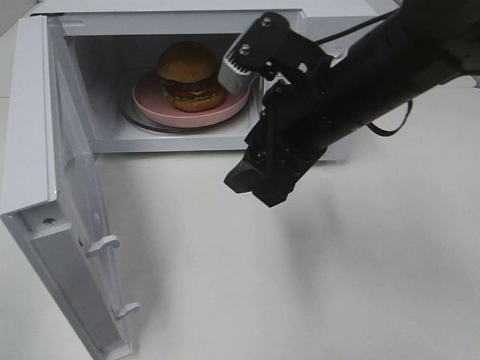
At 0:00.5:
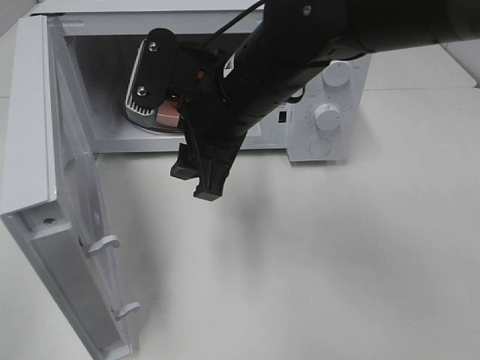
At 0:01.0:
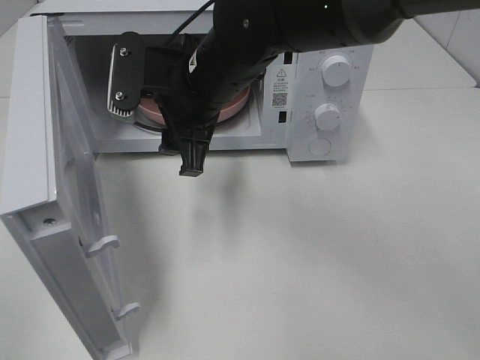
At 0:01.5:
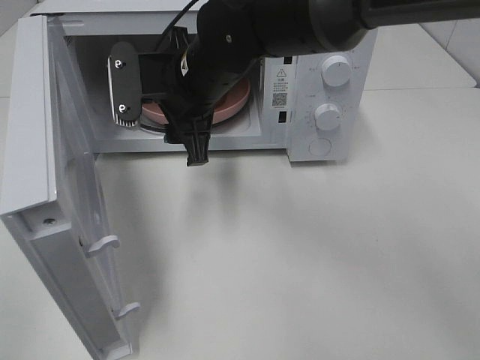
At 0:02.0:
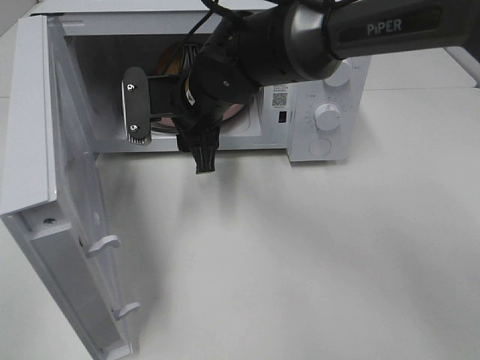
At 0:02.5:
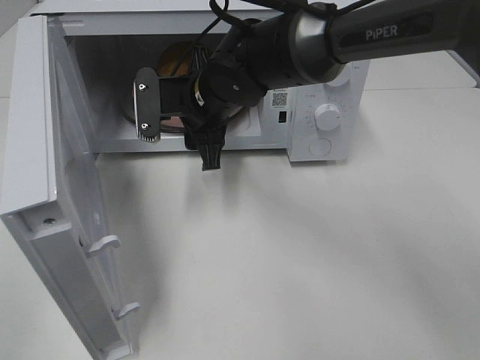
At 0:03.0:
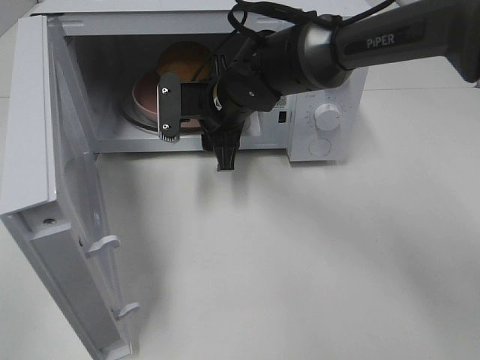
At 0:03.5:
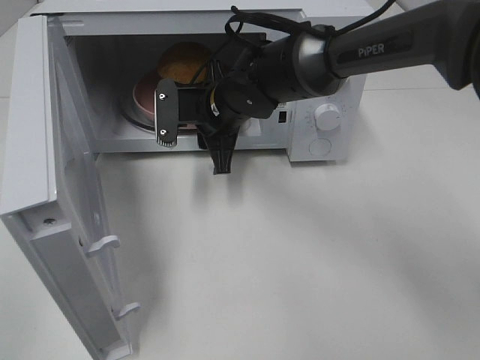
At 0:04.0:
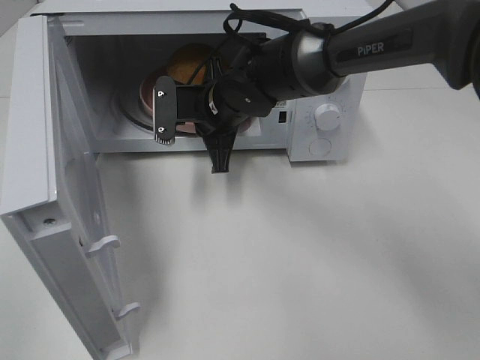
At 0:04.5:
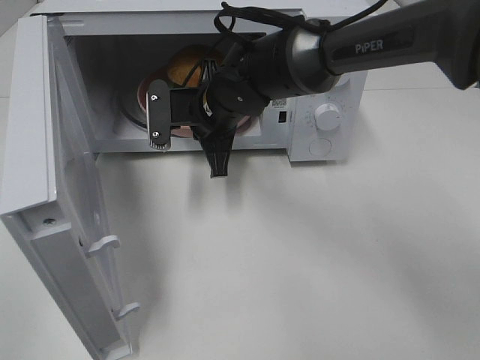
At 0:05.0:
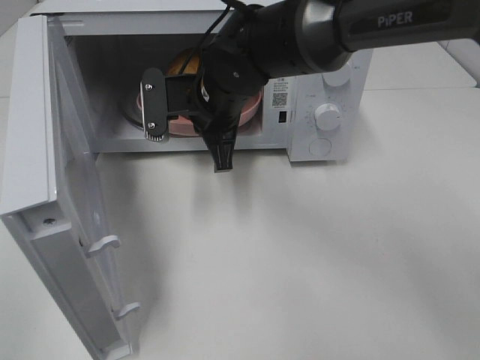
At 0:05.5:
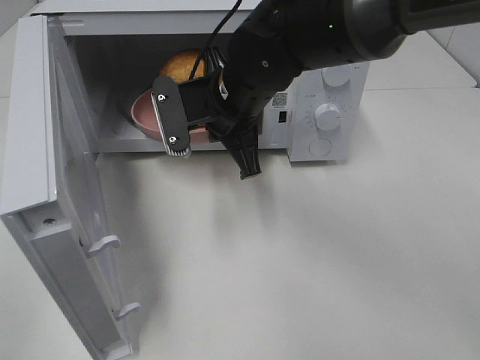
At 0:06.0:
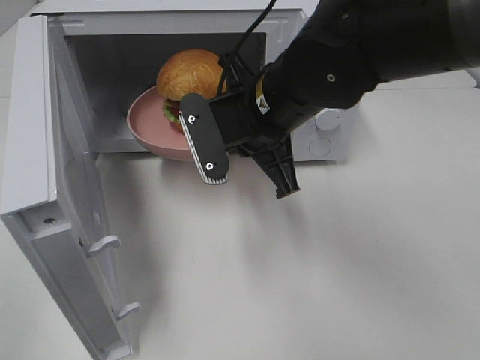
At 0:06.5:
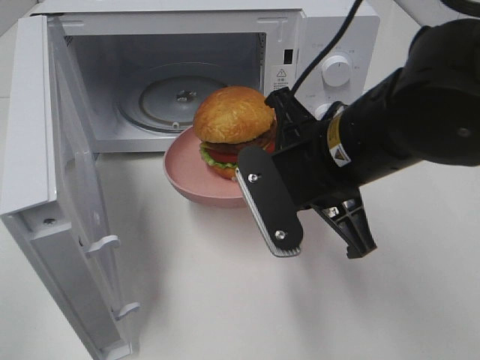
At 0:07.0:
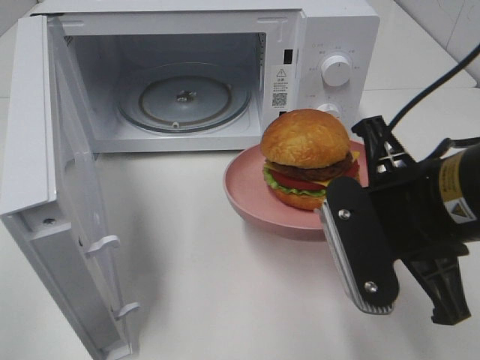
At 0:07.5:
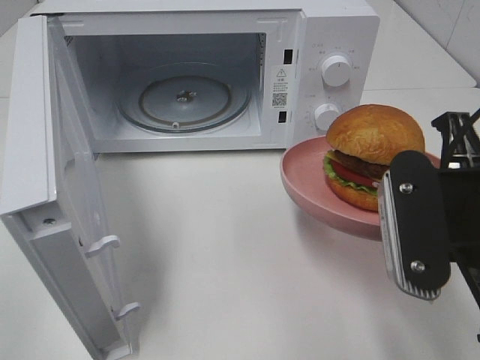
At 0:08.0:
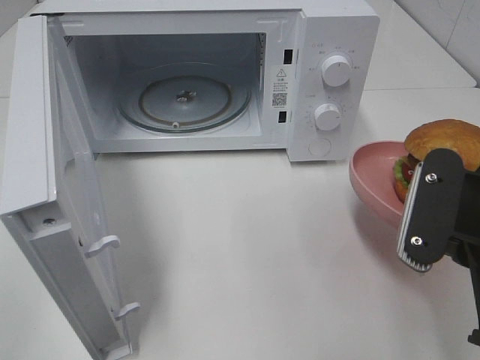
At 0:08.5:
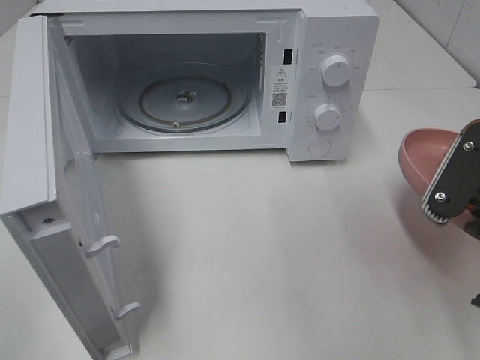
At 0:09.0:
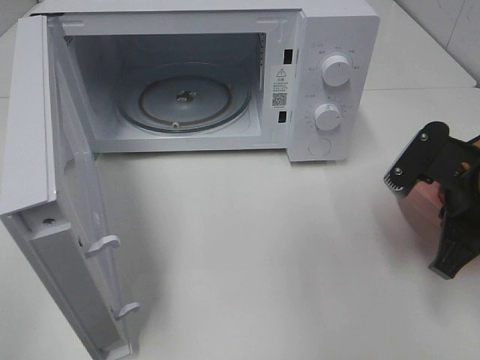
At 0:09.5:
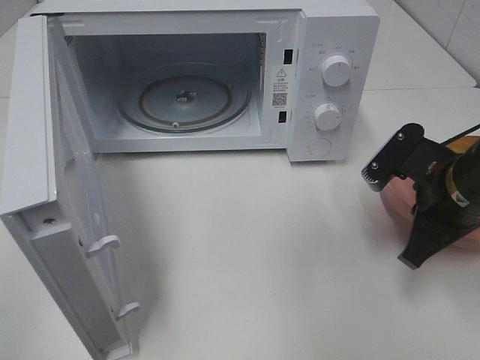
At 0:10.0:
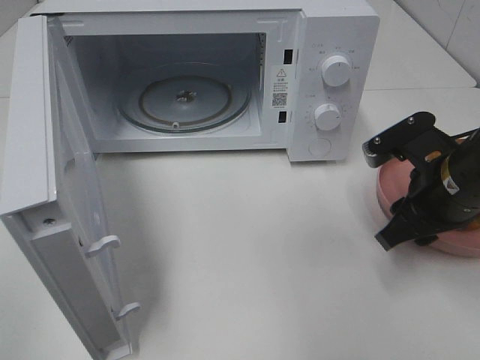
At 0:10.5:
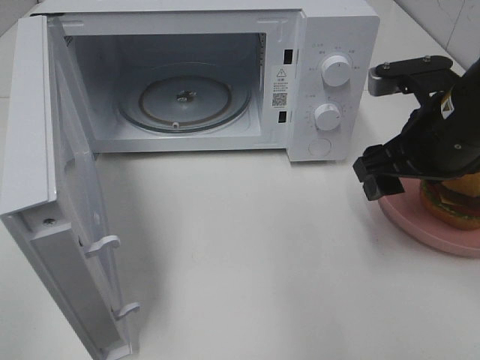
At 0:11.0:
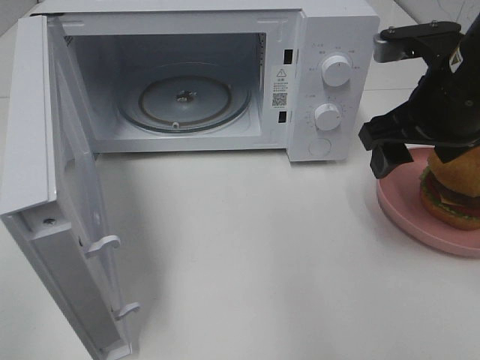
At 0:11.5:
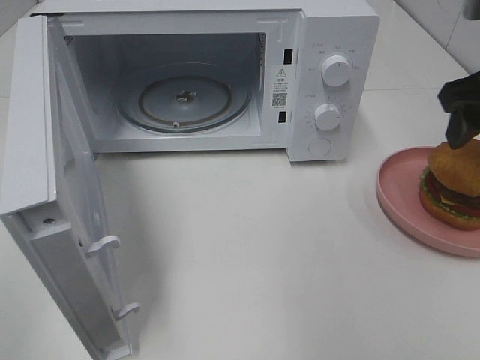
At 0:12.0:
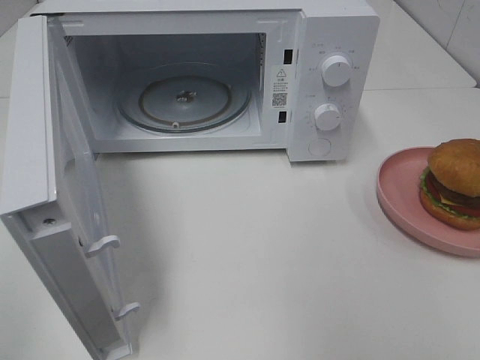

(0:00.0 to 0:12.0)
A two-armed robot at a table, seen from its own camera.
Task of the whole recording: Heat the burger.
Step, 0:00.0 - 0:03.5: Right hand: grab the plate with the hamburger.
Step, 0:04.0 - 0:09.5: Right hand: place the plate on the table.
0:00.0 - 0:02.0: The right gripper shifts some 15 cm to the left, forward and downward.
0:02.0 - 0:04.0: The right gripper changes place by some 5 cm, and closes.
0:04.0 - 0:06.0: The right gripper moves backward, upward and to the right, approximately 15 cm.
0:06.0 - 0:08.0: The right gripper moves to the right and backward, roughly 20 cm.
0:08.0 - 0:10.0: The right gripper shifts approximately 15 cm forward and downward, and opens up.
0:10.0 - 0:12.0: The right gripper travels upward by some 20 cm.

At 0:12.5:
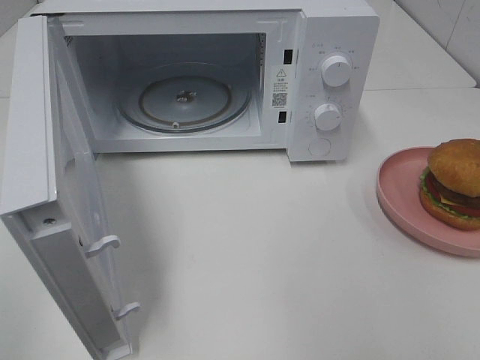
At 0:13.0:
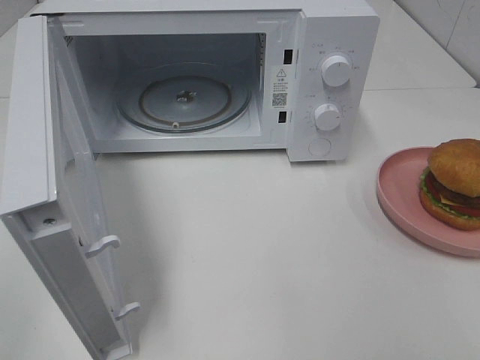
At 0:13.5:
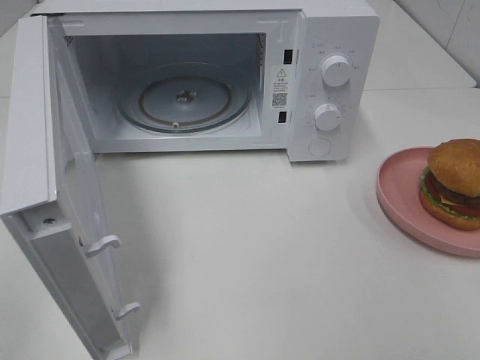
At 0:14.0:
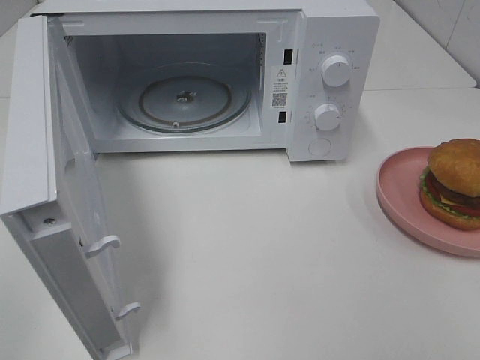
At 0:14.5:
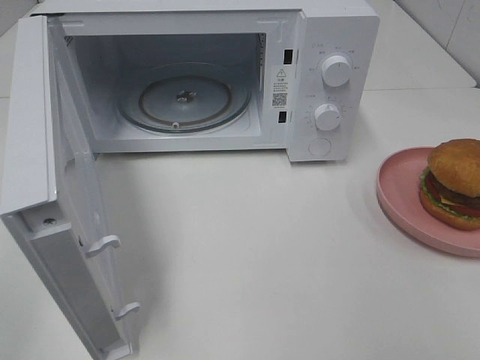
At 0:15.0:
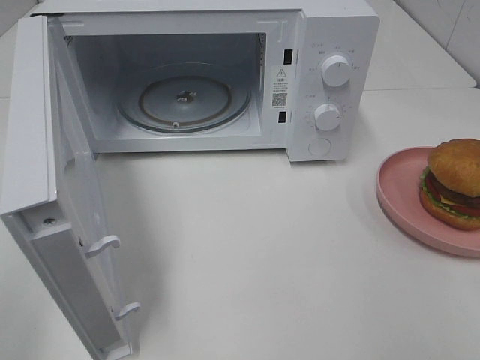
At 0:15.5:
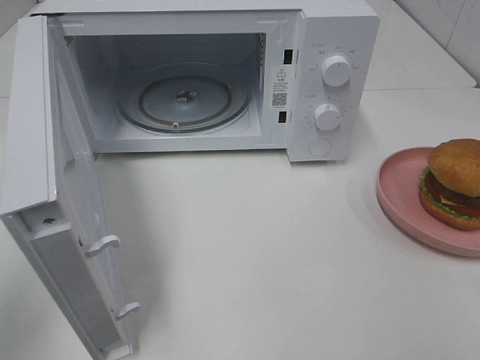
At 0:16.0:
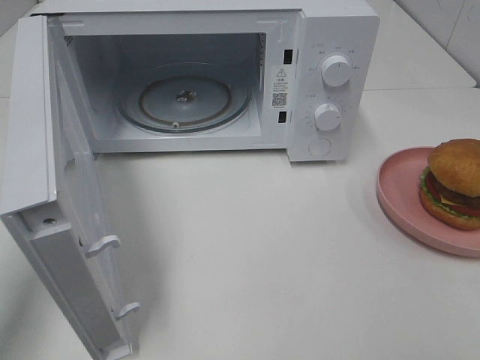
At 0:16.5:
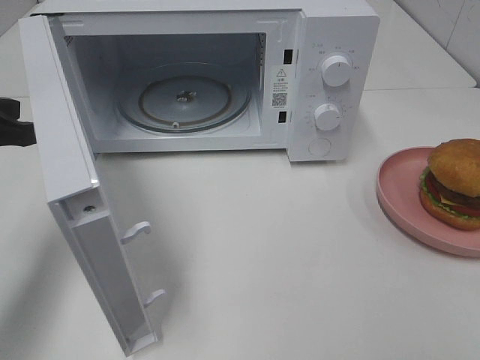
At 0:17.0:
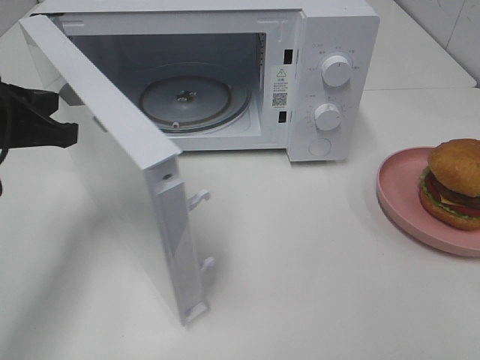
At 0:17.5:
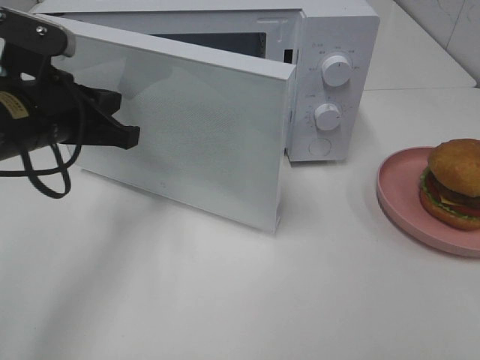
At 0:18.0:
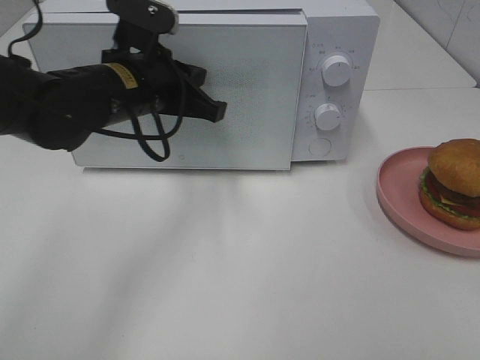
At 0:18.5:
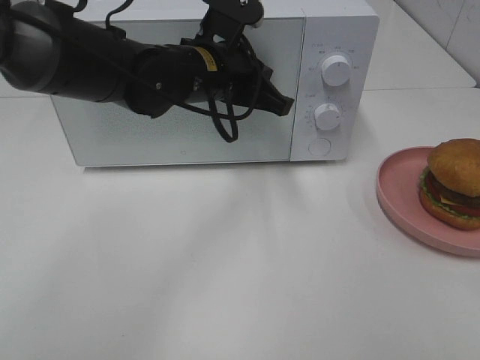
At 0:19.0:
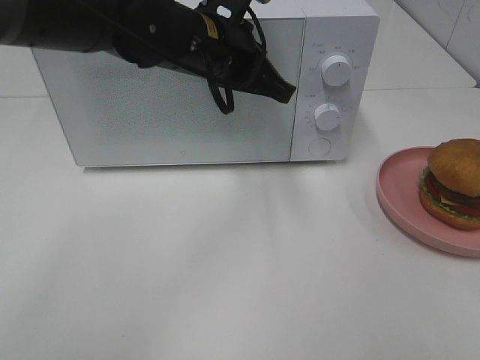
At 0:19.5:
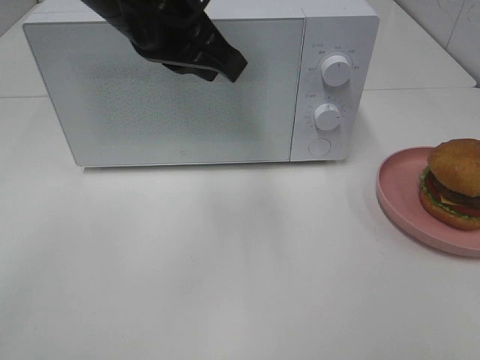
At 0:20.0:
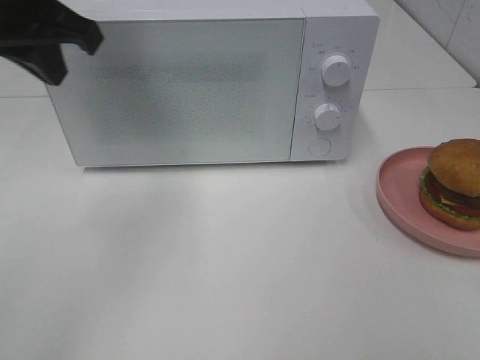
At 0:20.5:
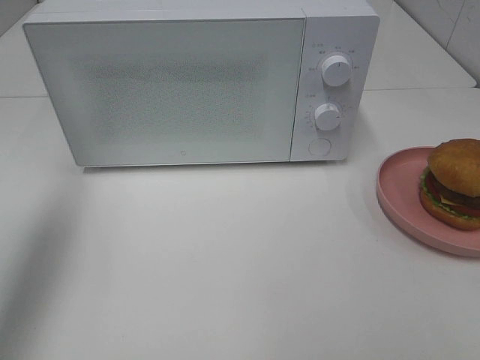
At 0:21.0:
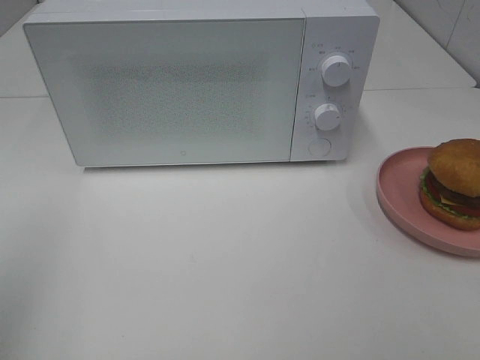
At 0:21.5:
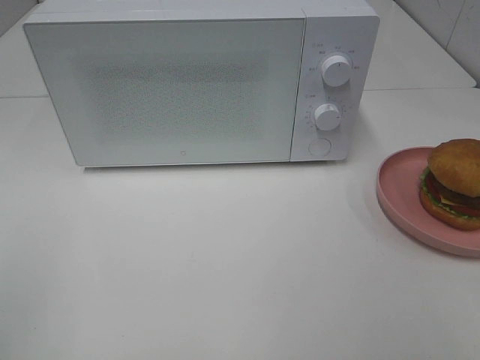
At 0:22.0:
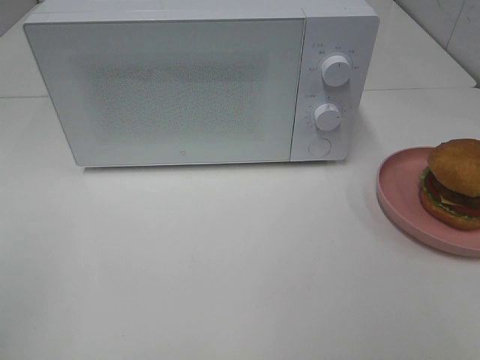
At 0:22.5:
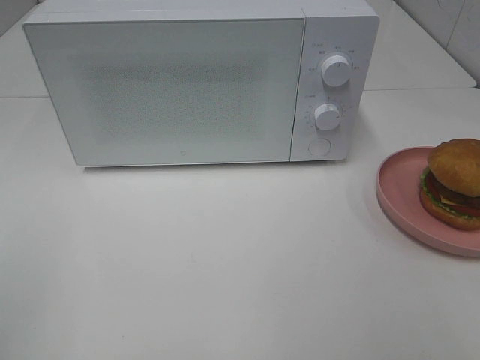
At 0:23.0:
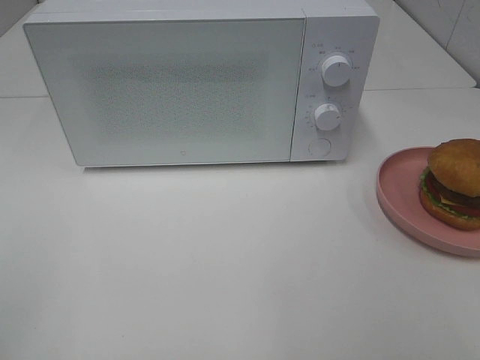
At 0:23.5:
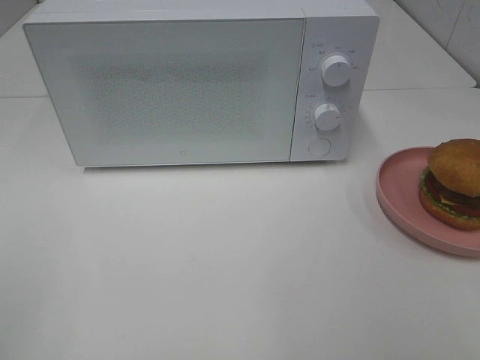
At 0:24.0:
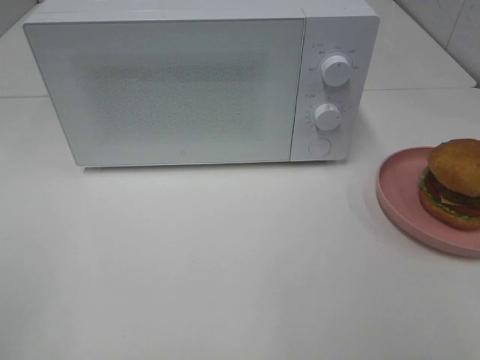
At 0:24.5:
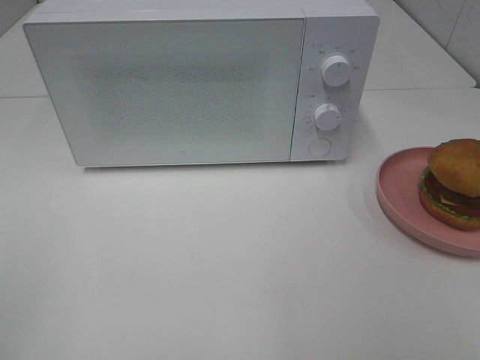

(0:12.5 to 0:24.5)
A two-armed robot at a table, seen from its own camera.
Task of the whole recording: Heat the burger.
Step, 0:12.5 - 0:18.0: Left hand: close the microwave door.
0:14.5 - 0:16.5: The left gripper goes roughly 25 cm forward.
0:16.5 - 0:18.5: The left gripper heads to the right and forward, covering approximately 25 cm.
0:18.5 - 0:20.5: The left gripper travels to the left, upward and backward by approximately 35 cm.
0:20.5 - 0:22.5: The left gripper moves backward, about 25 cm.

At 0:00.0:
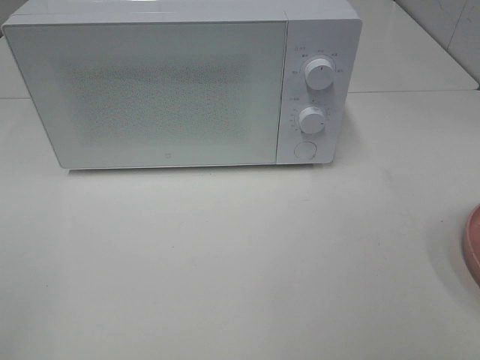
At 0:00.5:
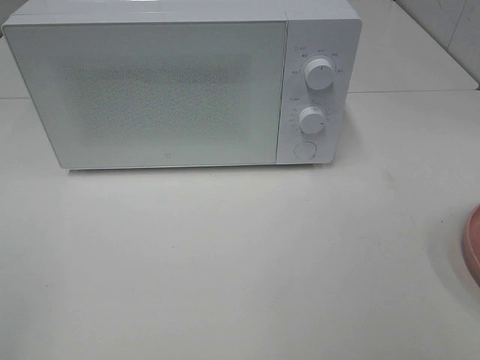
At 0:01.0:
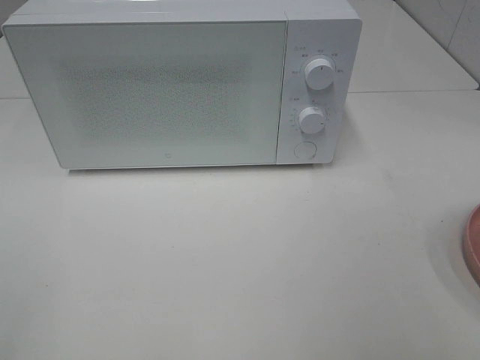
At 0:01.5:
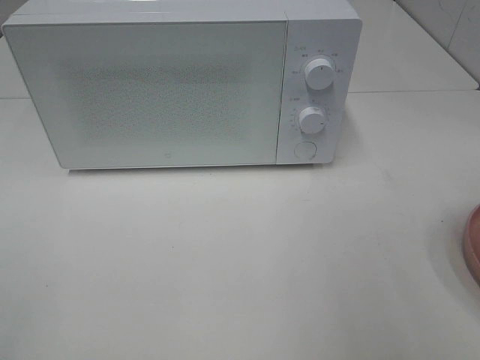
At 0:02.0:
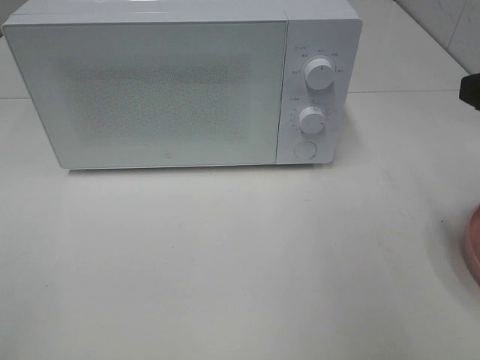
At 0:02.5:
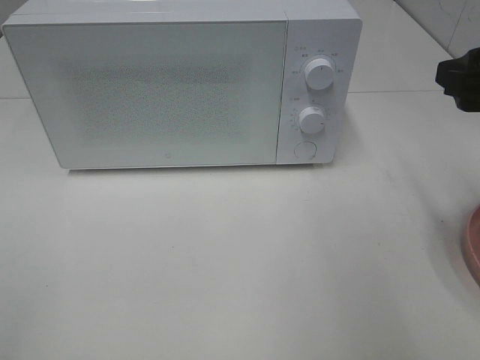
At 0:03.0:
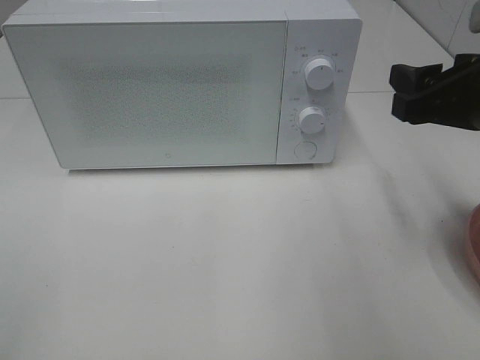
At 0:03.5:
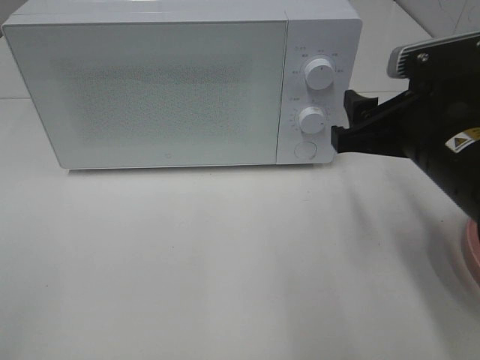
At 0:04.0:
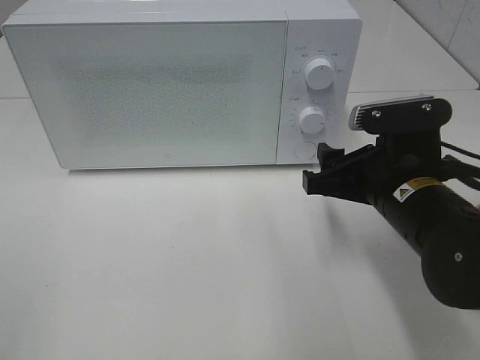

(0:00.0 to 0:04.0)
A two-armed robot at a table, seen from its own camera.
Task of the whole recording: Heat the burger.
0:00.0 - 0:02.0: The right gripper shifts about 20 cm forward.
0:02.0 - 0:04.0: The right gripper heads downward and to the left, covering about 20 cm.
